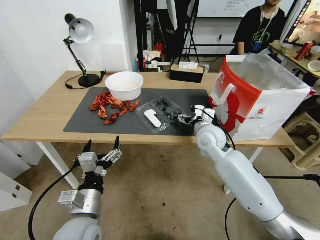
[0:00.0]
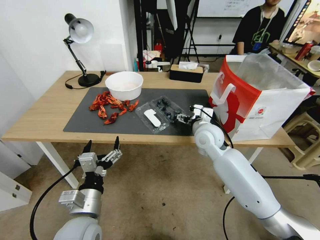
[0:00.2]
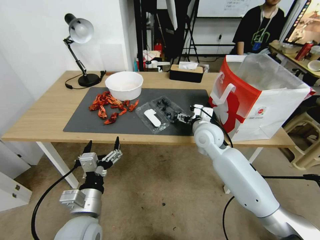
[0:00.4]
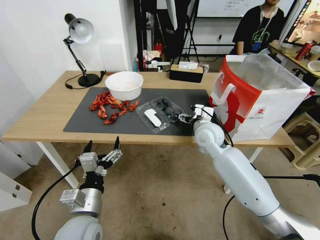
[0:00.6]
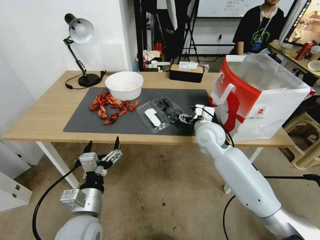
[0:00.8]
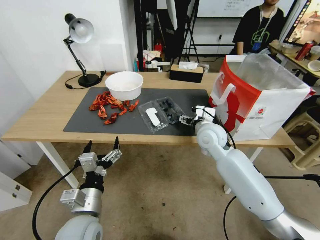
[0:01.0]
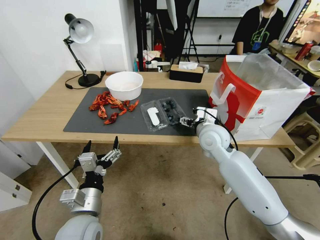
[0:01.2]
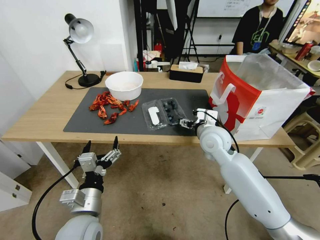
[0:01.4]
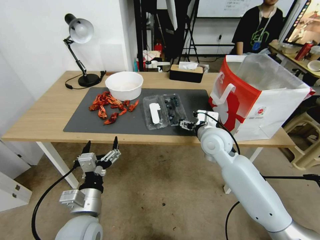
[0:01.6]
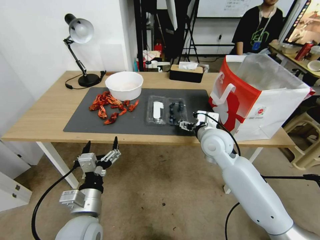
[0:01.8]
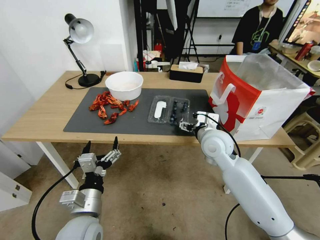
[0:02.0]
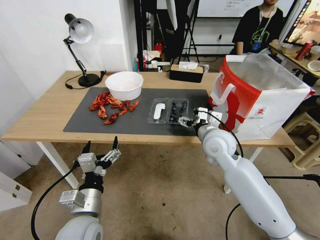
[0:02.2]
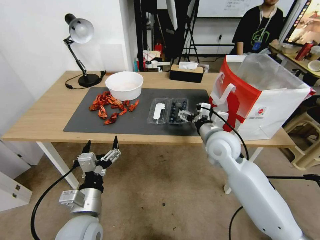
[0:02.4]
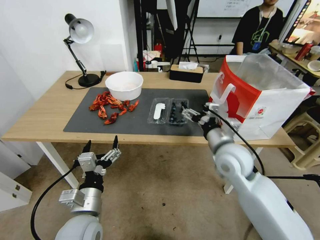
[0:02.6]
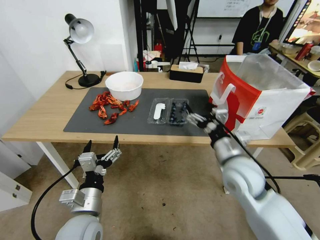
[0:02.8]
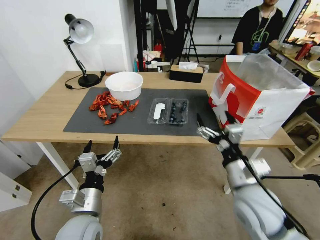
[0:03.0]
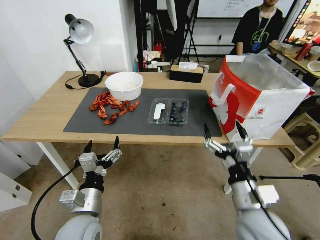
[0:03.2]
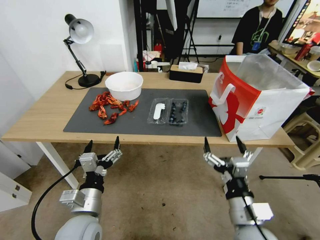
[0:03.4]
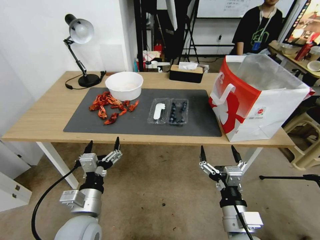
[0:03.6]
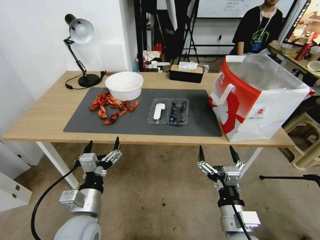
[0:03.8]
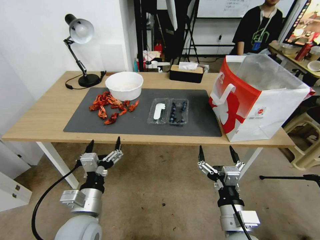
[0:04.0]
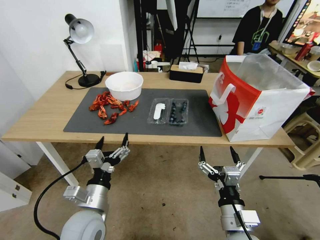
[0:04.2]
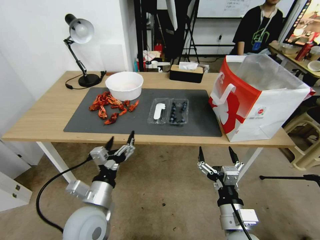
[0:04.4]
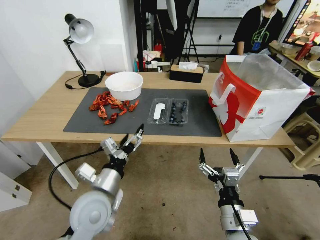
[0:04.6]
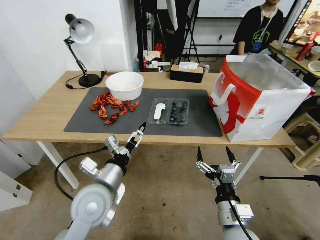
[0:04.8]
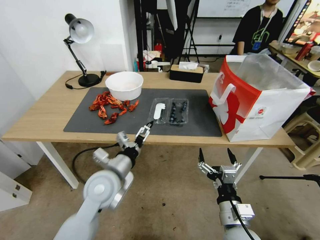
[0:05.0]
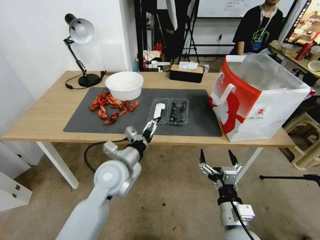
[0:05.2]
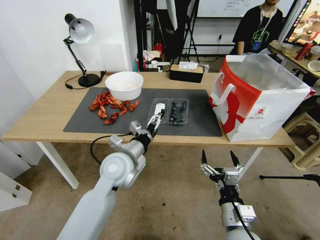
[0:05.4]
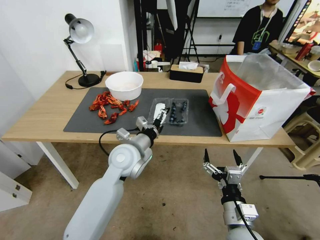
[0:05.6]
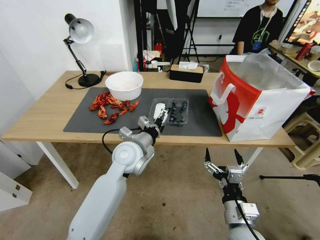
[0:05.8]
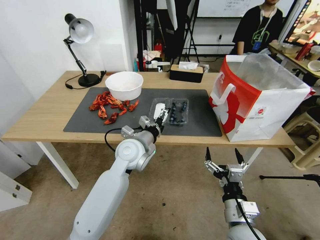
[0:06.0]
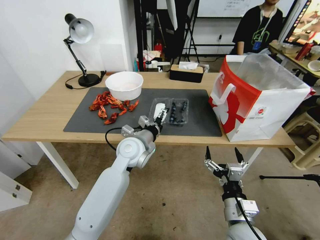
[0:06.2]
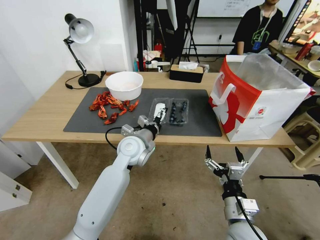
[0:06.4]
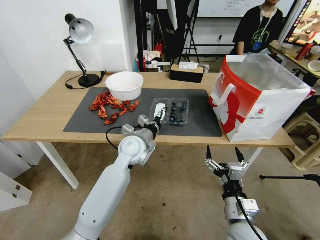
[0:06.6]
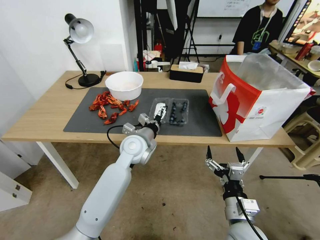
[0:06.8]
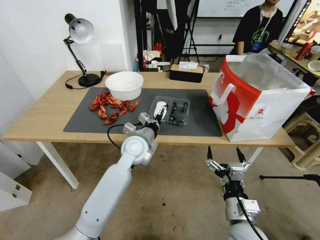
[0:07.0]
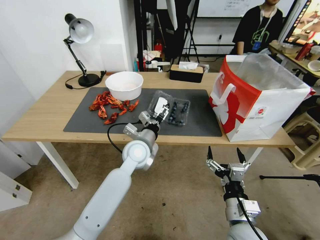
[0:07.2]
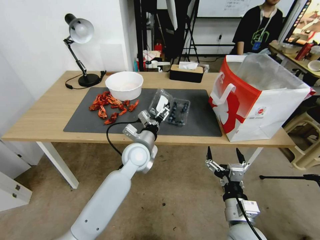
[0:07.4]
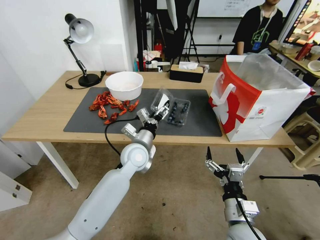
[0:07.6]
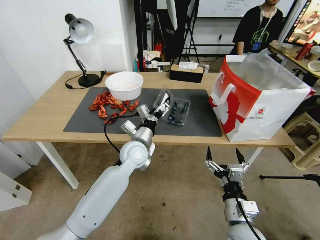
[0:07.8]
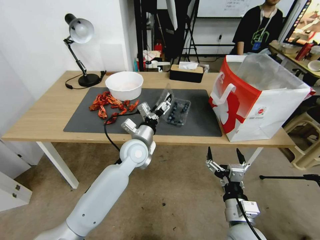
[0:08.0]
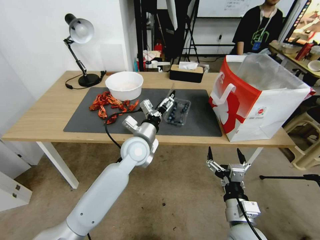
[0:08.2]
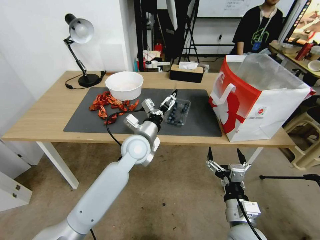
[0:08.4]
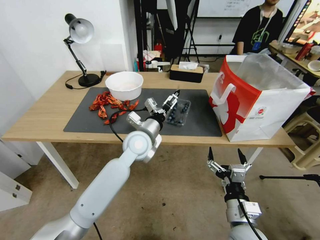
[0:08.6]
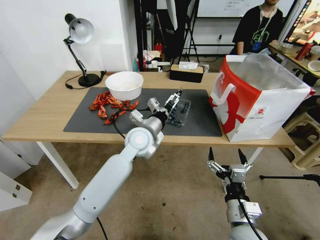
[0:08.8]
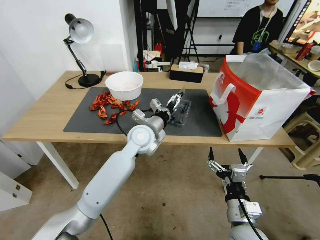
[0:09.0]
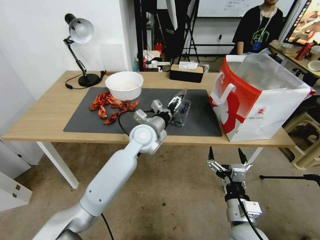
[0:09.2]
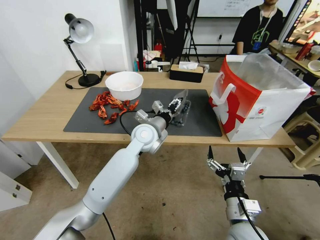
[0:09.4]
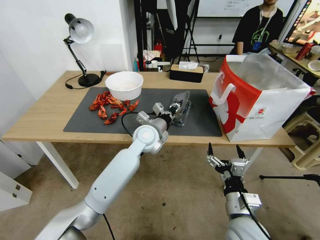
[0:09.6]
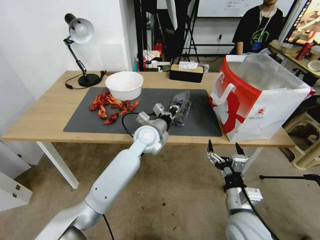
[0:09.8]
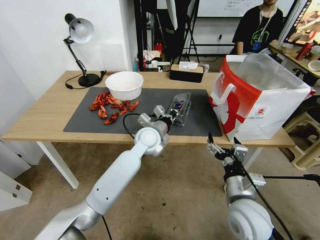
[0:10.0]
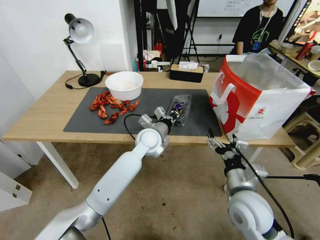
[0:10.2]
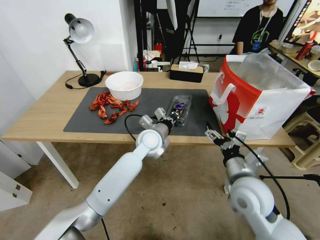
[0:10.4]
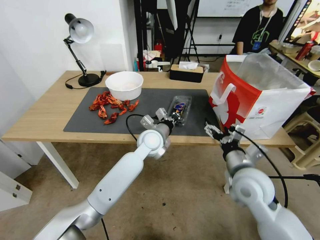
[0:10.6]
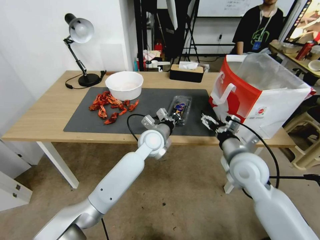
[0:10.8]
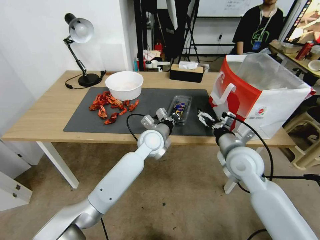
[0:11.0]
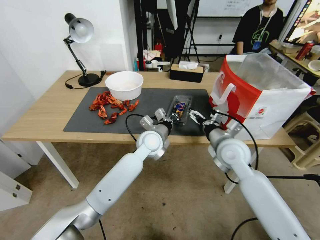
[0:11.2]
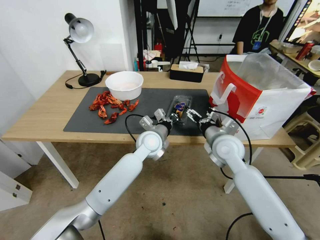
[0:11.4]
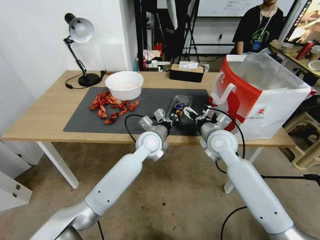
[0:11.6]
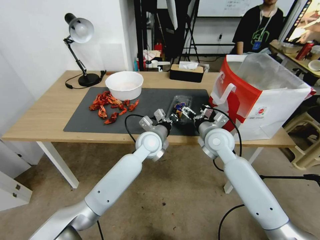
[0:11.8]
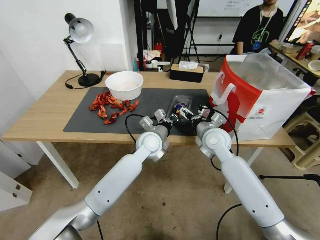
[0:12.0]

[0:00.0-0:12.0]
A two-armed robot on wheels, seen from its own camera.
Task of the whole recording: Close the takeout container lid, then place the container into the takeout bag.
0:00.0 to 0:01.6: The grippers move only a little.
0:01.6 to 0:03.0: The right gripper is displaced backward by some 20 cm.
0:03.0 to 0:04.4: The right gripper shifts about 10 cm backward and downward.
0:04.4 to 0:06.0: The left gripper shifts about 20 cm forward and to the right.
0:07.6 to 0:09.0: The left gripper goes some 5 cm upward.
0:09.0 to 0:10.4: The right gripper travels forward and upward by approximately 10 cm. Meanwhile the left gripper closes up.
0:10.4 to 0:12.0: The right gripper moves forward, about 20 cm.

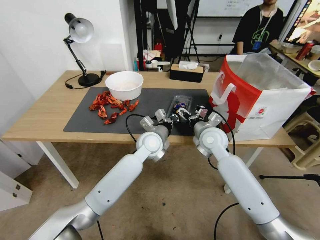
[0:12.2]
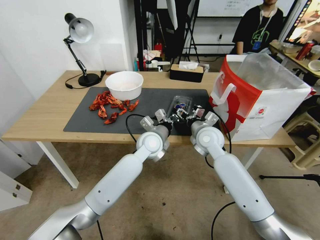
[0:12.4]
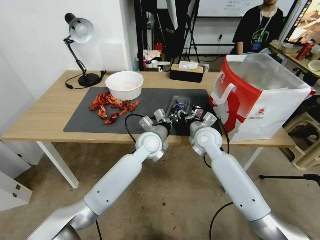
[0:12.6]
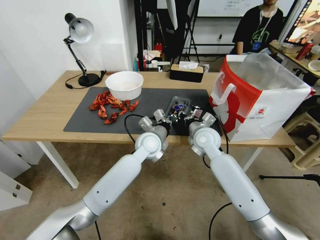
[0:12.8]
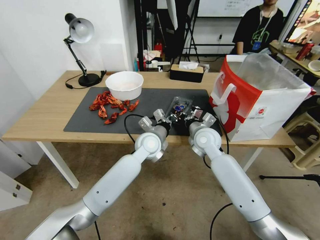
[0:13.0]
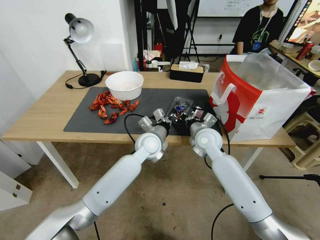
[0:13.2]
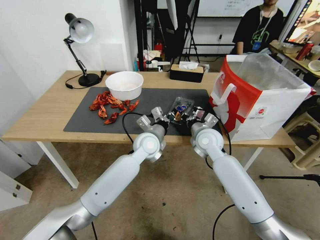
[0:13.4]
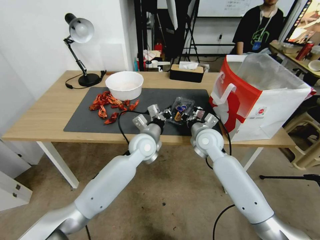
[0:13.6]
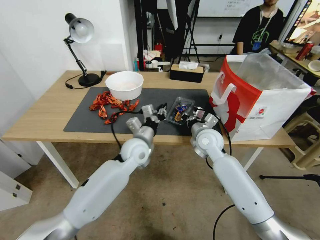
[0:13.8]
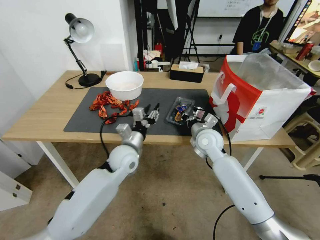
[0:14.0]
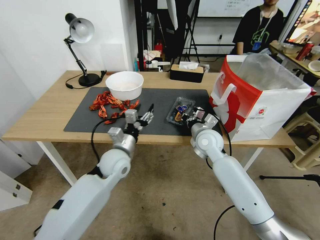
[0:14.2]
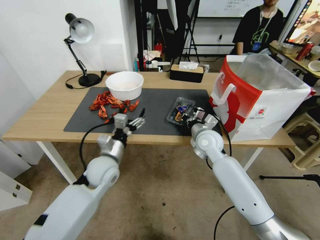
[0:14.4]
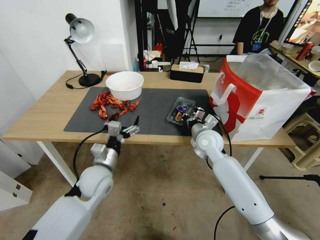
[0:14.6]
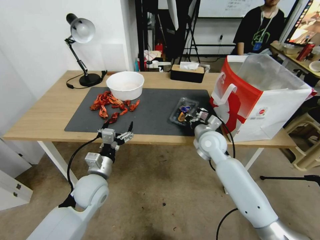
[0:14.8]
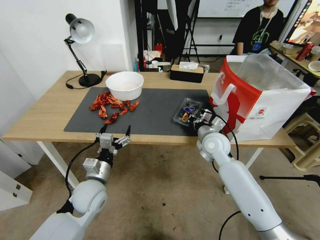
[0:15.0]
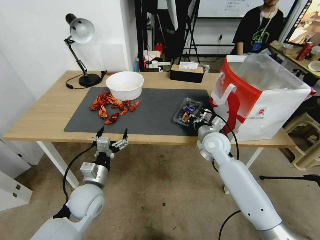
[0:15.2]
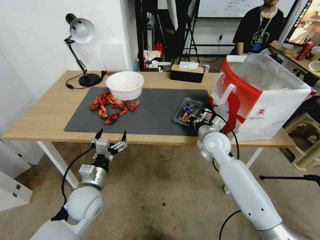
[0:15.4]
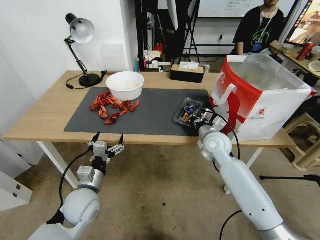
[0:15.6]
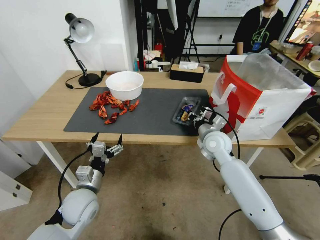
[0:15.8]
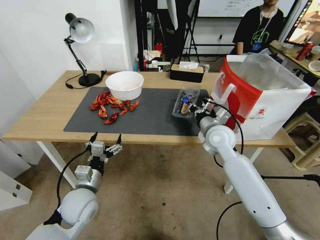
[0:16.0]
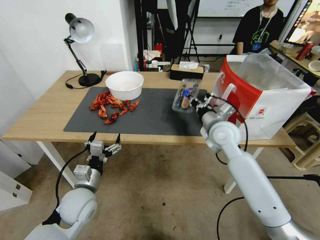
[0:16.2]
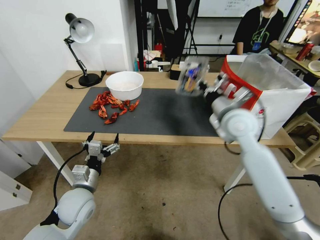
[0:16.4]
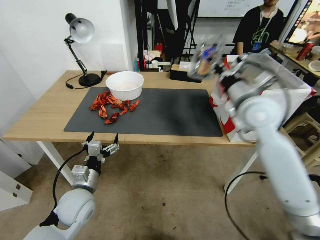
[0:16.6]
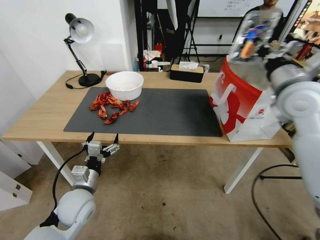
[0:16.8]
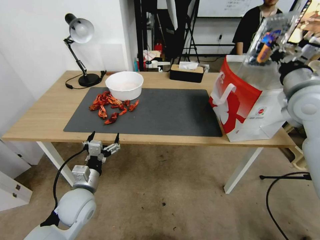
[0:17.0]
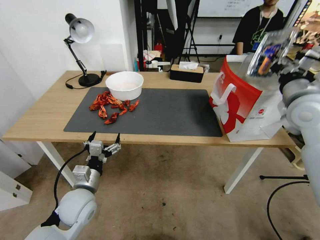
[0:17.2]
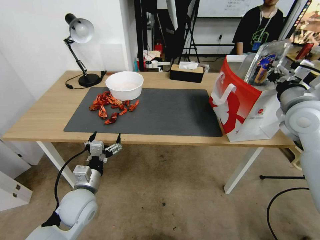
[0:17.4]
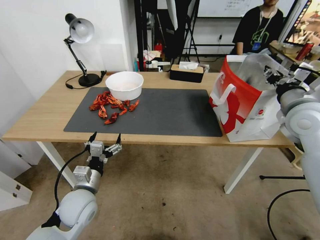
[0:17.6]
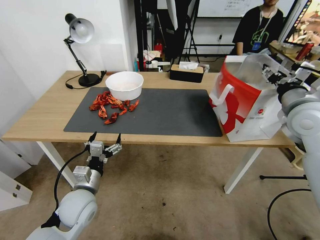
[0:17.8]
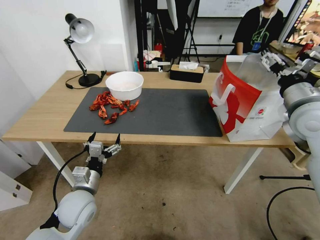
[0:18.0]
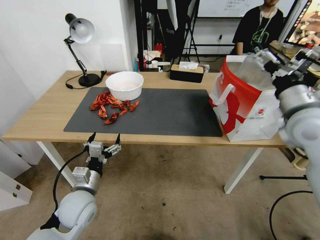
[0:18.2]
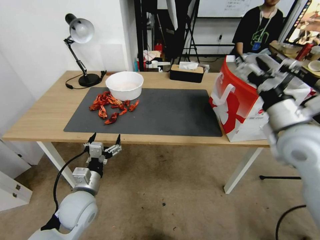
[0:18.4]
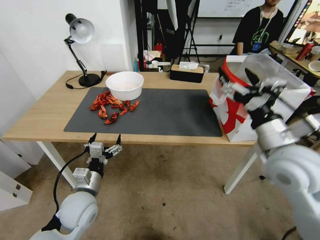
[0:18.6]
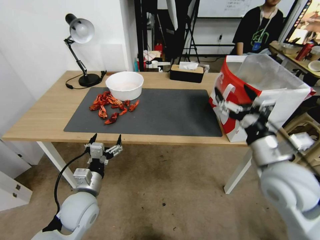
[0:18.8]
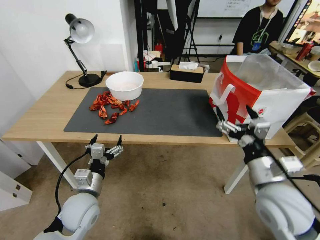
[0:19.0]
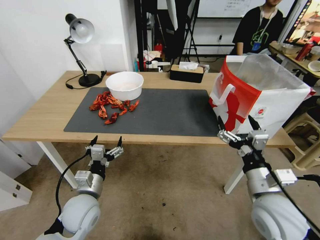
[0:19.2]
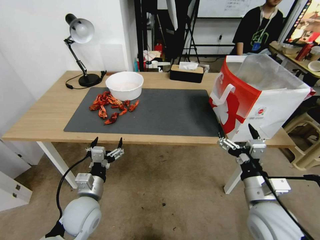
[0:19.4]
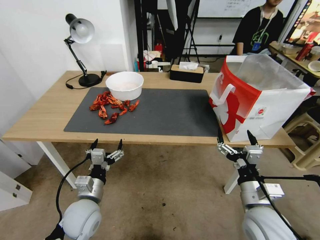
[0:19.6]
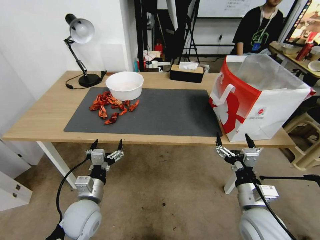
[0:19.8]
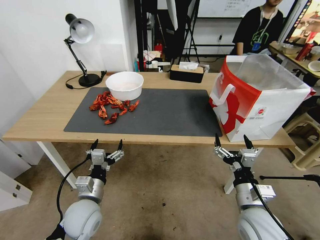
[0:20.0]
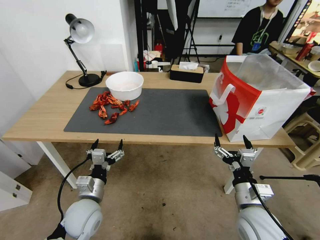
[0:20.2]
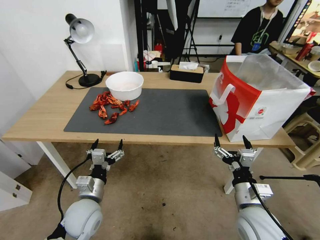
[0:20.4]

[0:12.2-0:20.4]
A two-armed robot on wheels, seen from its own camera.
Task of the whole recording: Close the takeout container lid, then place the container into the takeout bag.
0:12.2 to 0:13.8: The right gripper closes its fingers, while the left gripper shifts some 5 cm to the left.
0:13.8 to 0:15.4: The left gripper is displaced backward, to the left and downward by approximately 20 cm, and opens up.
0:15.4 to 0:17.2: The right gripper goes approximately 25 cm upward and to the right.
0:17.2 to 0:18.8: The right gripper travels backward, downward and to the left by approximately 20 cm, and opens.
0:18.8 to 0:20.4: The right gripper is displaced downward by some 15 cm.
